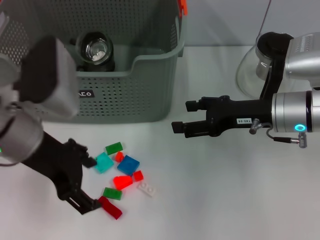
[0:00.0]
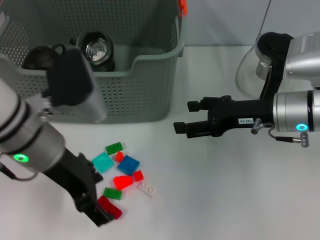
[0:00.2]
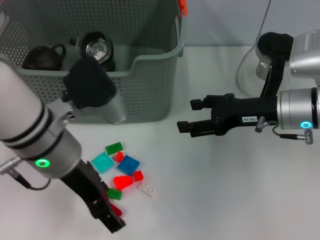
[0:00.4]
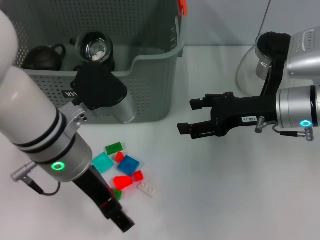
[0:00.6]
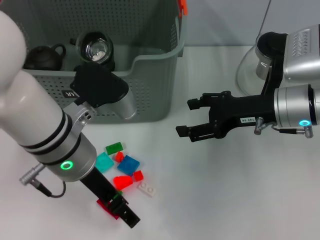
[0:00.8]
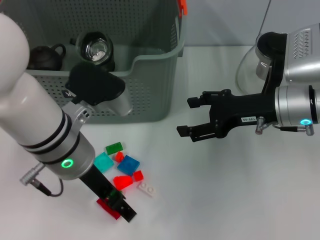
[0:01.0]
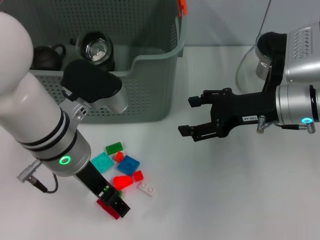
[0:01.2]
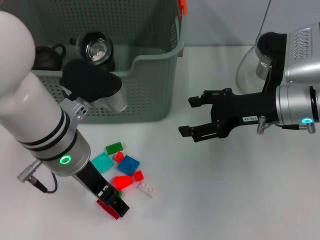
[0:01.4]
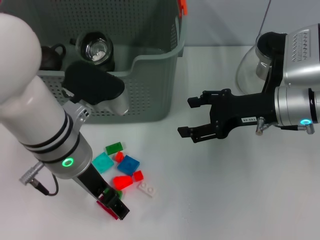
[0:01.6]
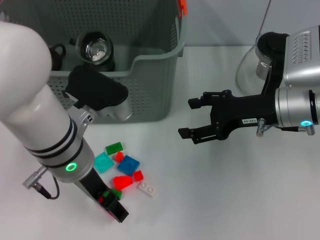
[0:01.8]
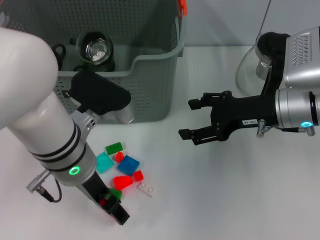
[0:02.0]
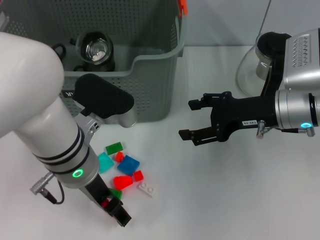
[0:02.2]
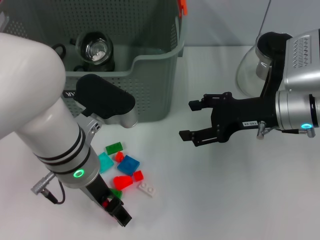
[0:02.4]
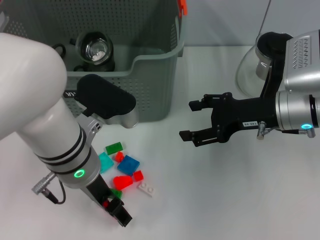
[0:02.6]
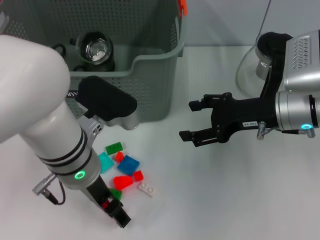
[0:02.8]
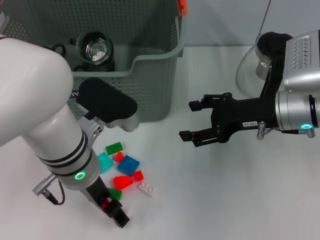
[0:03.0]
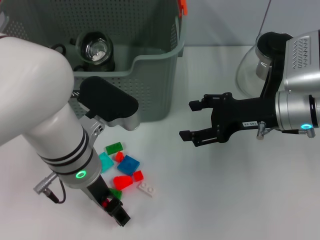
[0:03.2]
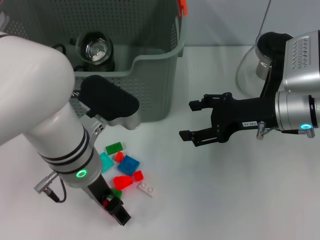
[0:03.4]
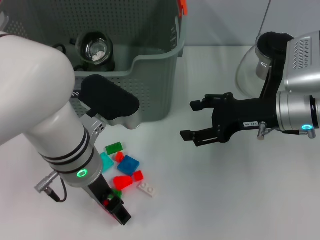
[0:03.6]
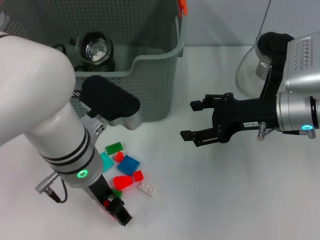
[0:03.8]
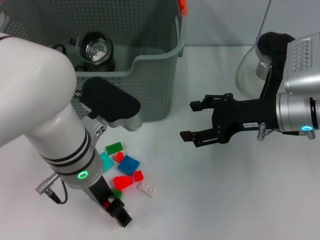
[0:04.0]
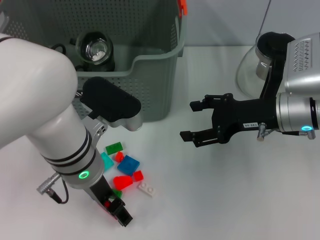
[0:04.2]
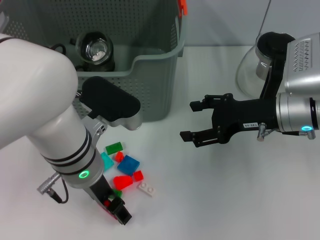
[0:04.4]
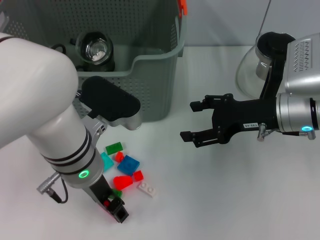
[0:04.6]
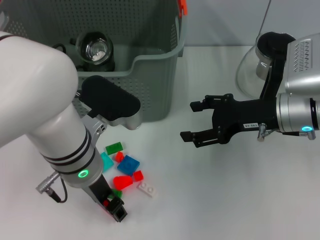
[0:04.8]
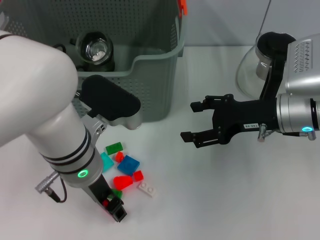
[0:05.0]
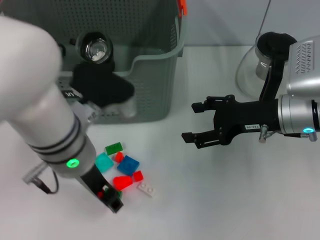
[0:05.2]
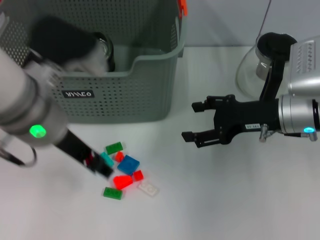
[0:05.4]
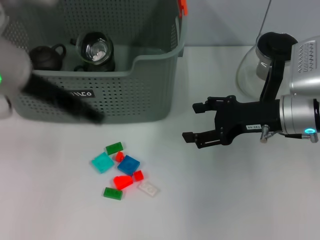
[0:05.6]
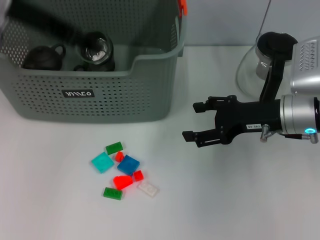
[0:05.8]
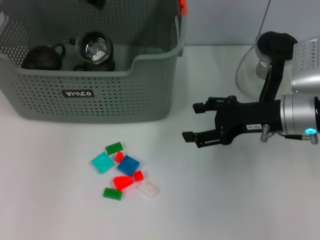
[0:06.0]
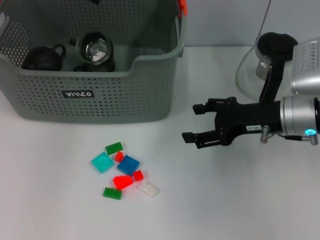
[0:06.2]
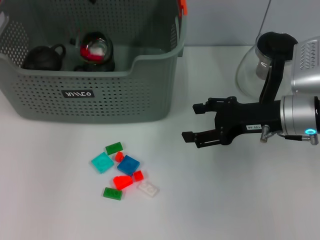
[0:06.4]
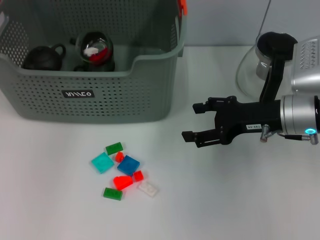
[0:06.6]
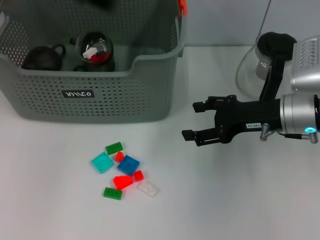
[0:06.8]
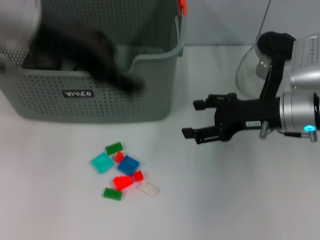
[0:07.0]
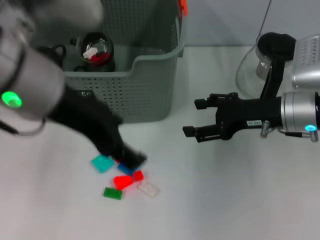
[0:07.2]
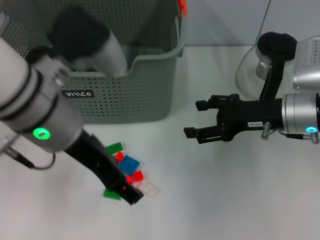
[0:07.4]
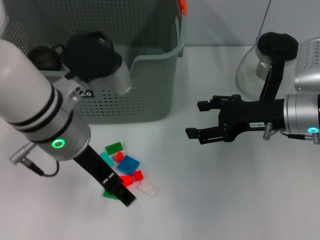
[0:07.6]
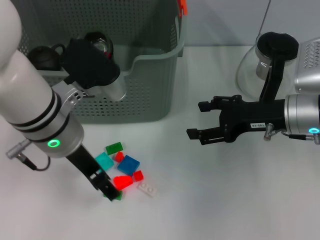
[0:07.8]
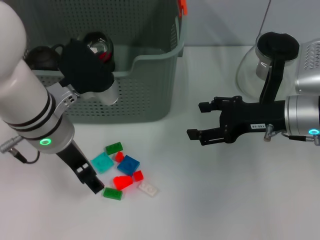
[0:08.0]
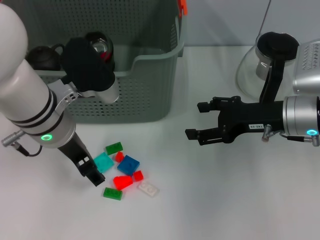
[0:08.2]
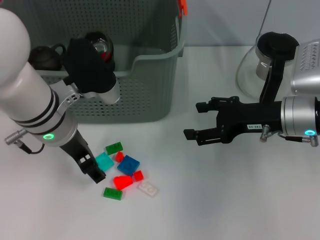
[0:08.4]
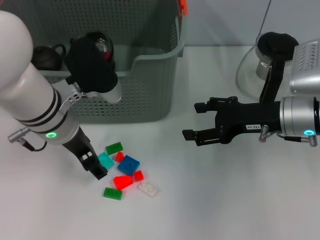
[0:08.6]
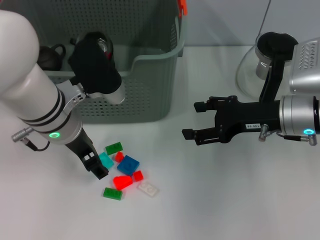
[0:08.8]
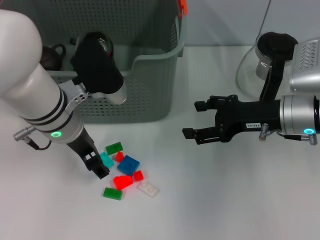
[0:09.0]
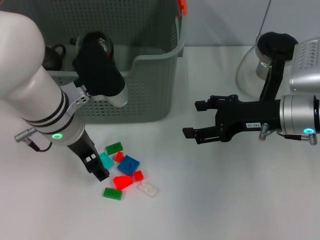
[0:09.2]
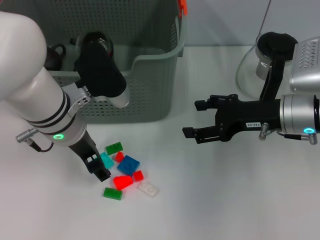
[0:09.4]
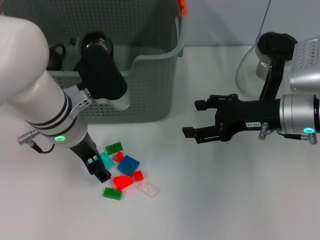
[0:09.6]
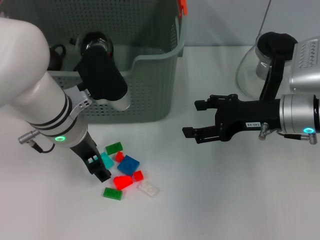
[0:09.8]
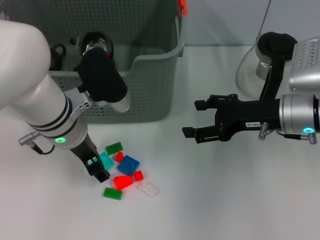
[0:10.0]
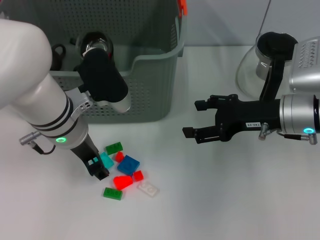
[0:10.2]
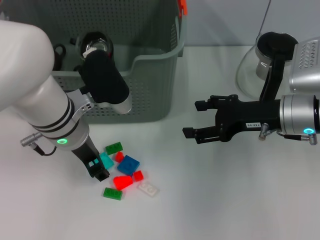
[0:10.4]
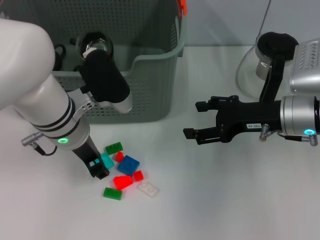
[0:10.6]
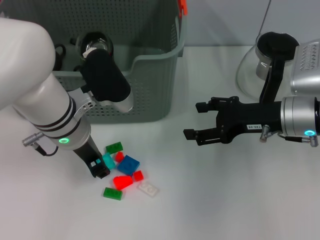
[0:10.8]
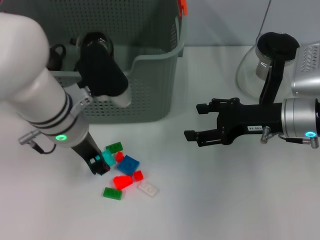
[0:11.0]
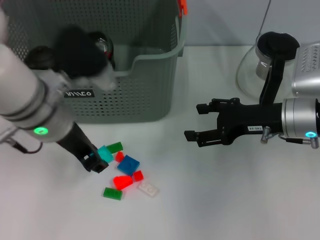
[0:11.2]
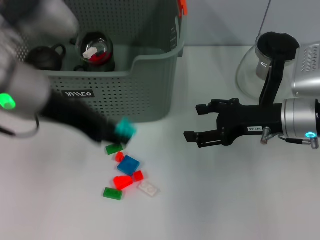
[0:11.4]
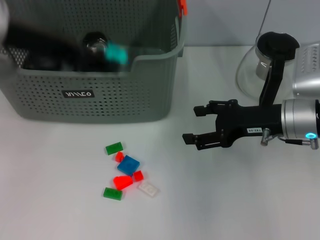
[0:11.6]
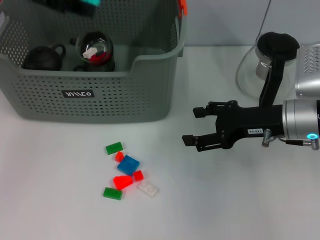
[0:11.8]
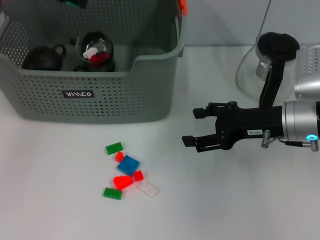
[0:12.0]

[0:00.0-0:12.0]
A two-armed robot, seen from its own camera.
Task of the whole recording: pick up the teacup on the table and place it into the storage bin, pick up the block on the table and place it into the storage bin.
Step, 0:00.0 to 0:04.8: Grasp the red block with left gripper.
Step, 0:05.0 to 0:06.6: Place the red block in the storage box with left gripper.
Step, 0:06.8 to 0:10.8: Grasp the light blue block with left gripper.
0:00.0 to 0:01.6: The left gripper is displaced to the right by about 5 cm.
0:01.6 to 0:03.0: The grippers move only a little.
0:03.0 to 0:04.4: Both grippers stay put.
0:04.4 to 0:06.0: The left gripper heads upward and forward, covering roughly 25 cm.
0:06.0 to 0:07.6: The left gripper goes about 20 cm downward, backward and to the right.
0:07.6 to 0:09.0: The left gripper ends up approximately 5 cm from where it was.
0:09.0 to 0:10.4: The grippers make only small movements.
0:10.4 to 0:12.0: The left gripper travels upward, to the left and forward by roughly 20 cm.

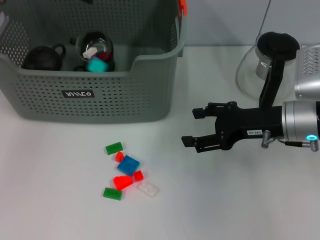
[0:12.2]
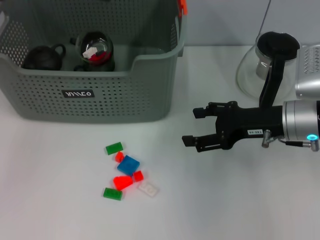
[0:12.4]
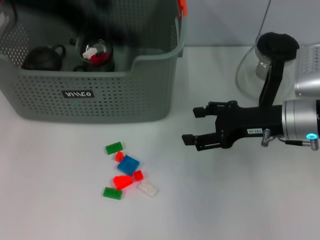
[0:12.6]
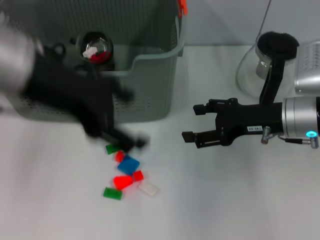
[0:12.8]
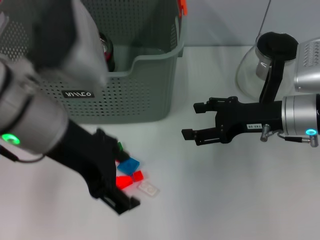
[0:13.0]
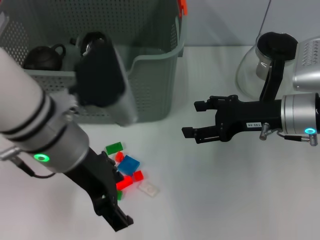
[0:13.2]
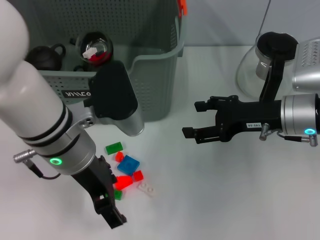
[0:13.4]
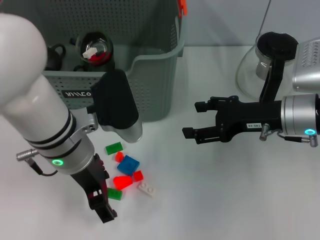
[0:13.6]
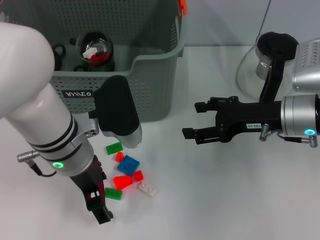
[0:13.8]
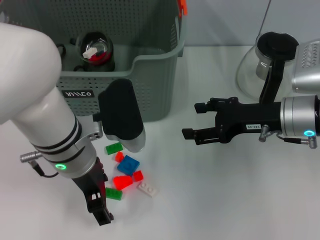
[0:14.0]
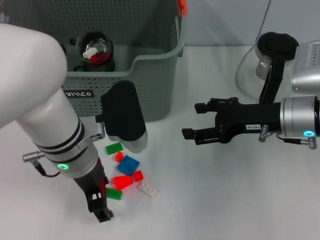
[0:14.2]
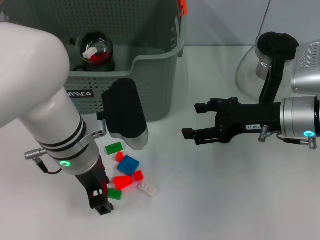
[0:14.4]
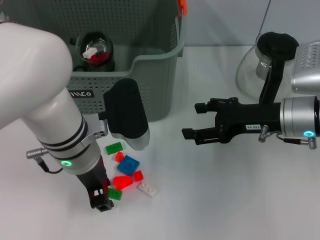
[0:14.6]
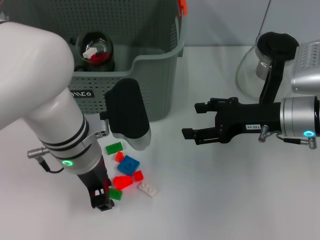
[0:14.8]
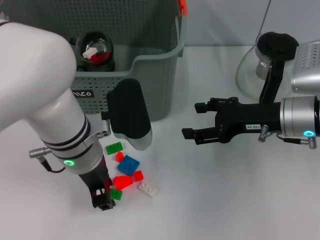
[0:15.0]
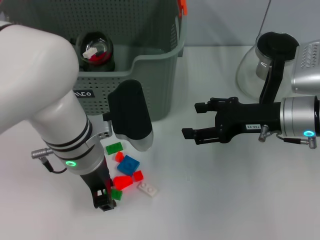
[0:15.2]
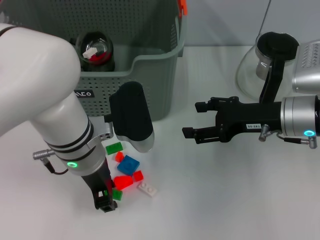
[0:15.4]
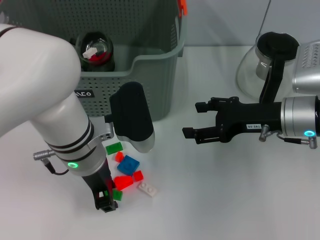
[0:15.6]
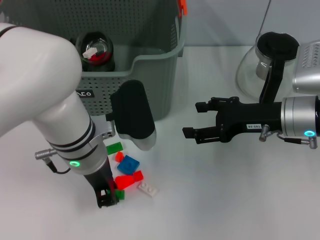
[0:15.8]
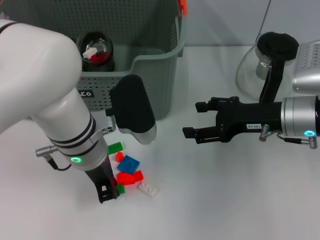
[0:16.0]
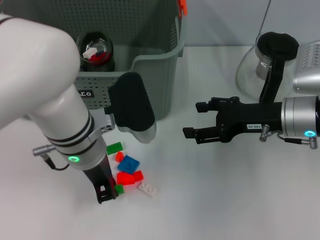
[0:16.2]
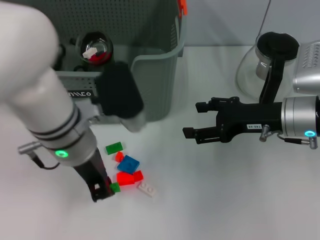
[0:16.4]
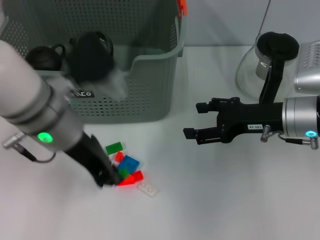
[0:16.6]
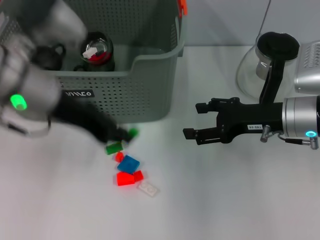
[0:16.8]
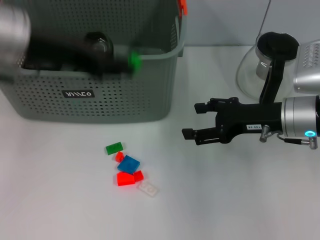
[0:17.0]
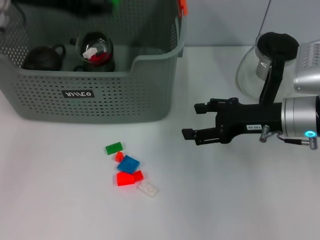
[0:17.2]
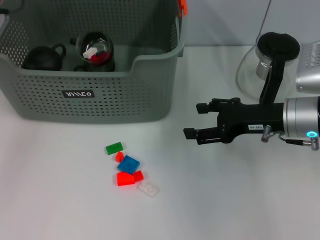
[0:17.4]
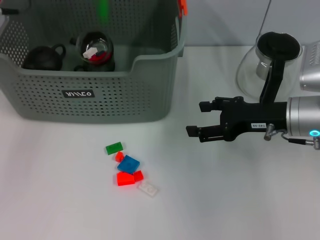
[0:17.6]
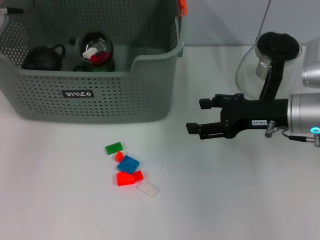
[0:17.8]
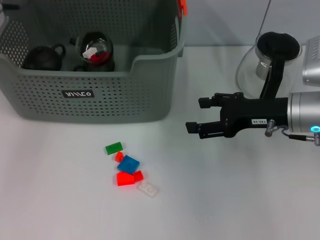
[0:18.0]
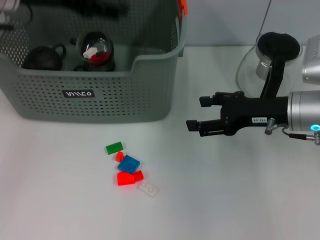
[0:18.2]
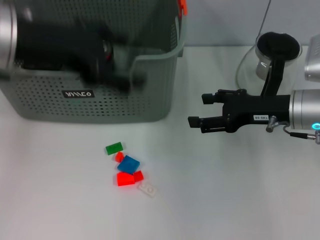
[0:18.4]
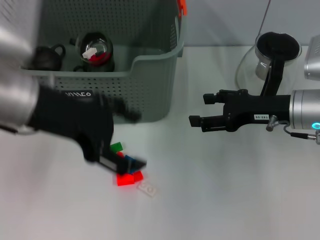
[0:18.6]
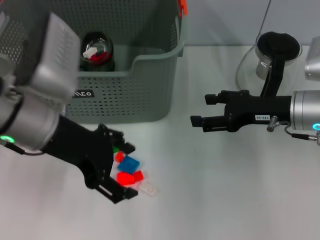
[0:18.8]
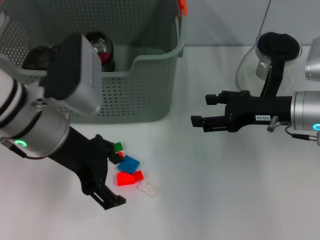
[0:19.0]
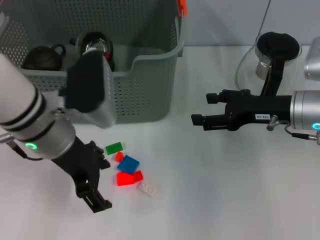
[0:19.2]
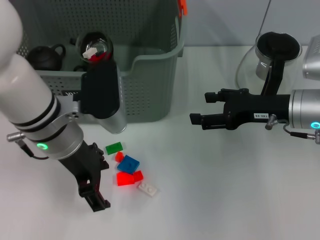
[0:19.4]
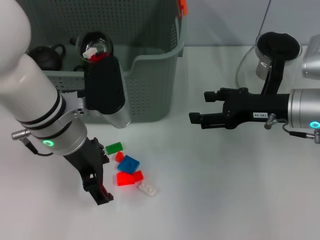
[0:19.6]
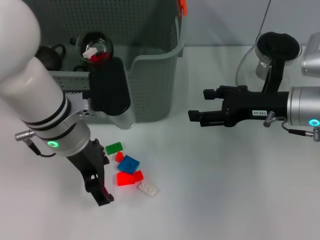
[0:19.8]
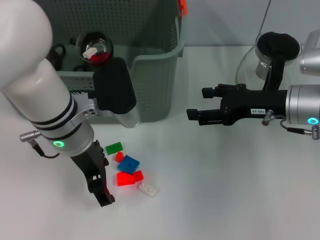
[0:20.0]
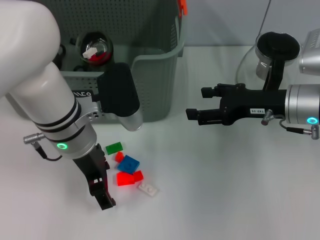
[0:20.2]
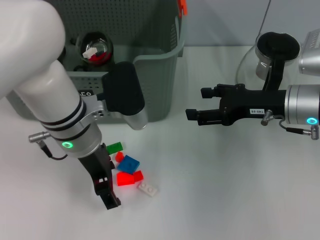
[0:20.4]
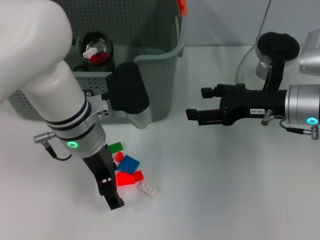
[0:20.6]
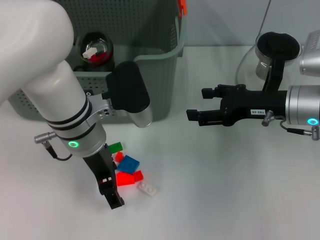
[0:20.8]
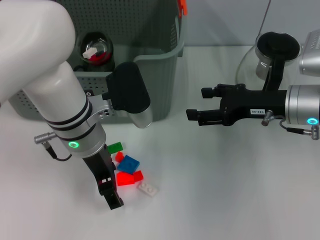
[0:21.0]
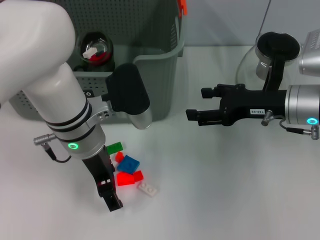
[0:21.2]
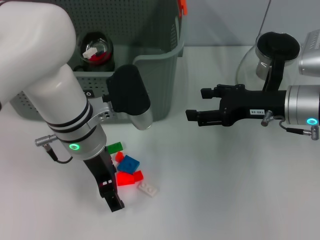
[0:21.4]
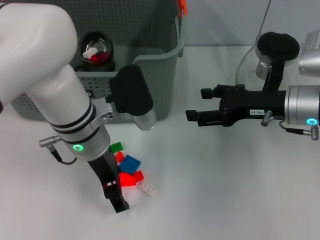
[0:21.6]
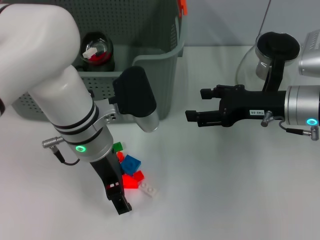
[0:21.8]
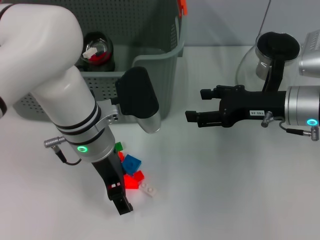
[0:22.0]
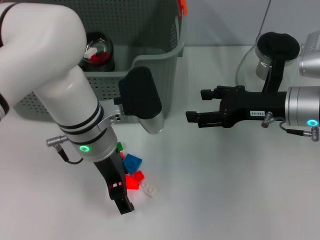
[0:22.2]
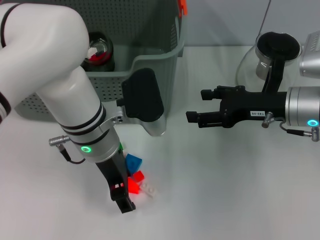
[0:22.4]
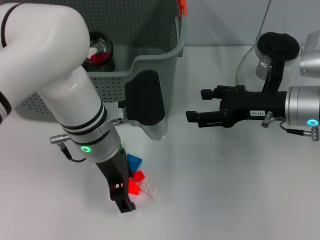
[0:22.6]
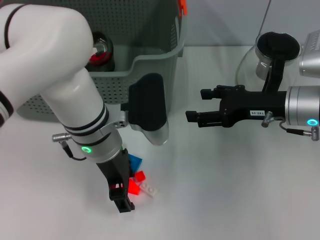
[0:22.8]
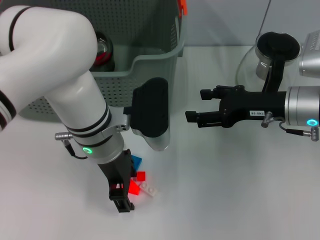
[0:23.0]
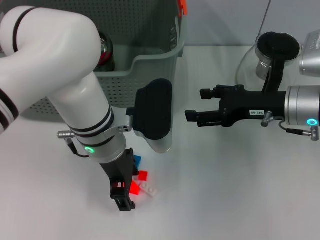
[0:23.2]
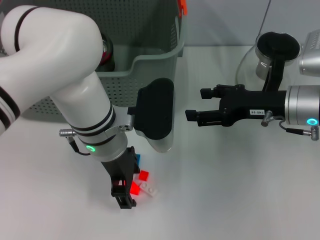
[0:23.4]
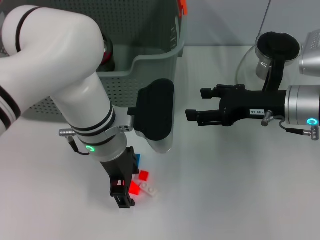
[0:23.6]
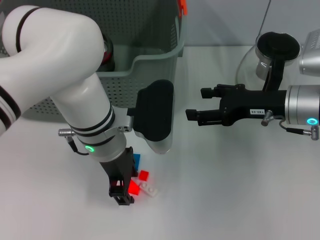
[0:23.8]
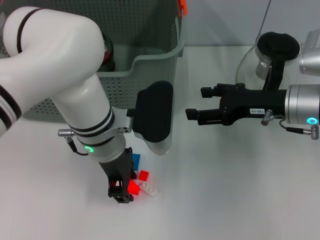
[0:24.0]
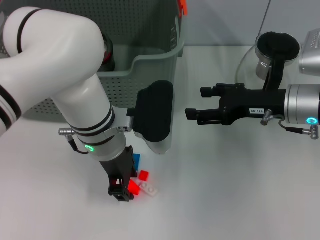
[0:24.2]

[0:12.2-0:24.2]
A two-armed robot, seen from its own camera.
Task of the whole recording: pick up the teacup on the table and place it into the storage bin, pick up the block on the table and place it into the storage bin.
Step, 0:12.6 to 0:16.0: Grasp the green block with left gripper.
Step, 0:16.2 to 0:17.8: Place the green block in the storage box with left gripper.
0:12.2 to 0:13.8: The left gripper moves downward, backward and to the right, some 25 cm, and opens up.
0:13.8 to 0:15.2: The left gripper closes.
0:15.2 to 0:16.6: The left gripper shifts some 5 cm upward.
0:16.6 to 0:18.2: The left gripper is displaced upward, to the left and forward by roughly 15 cm, and opens.
0:18.2 to 0:19.8: The left gripper goes some 15 cm downward, to the right and backward.
0:19.8 to 0:24.2: The grippers make only small movements.
